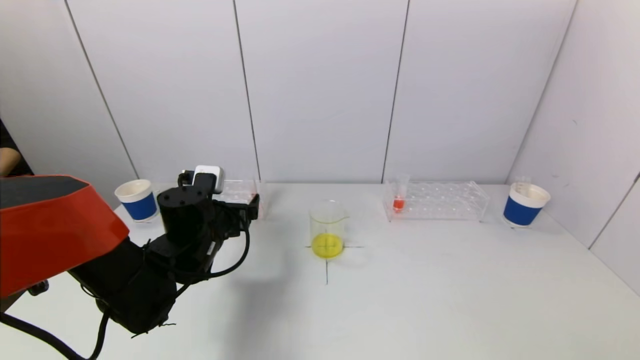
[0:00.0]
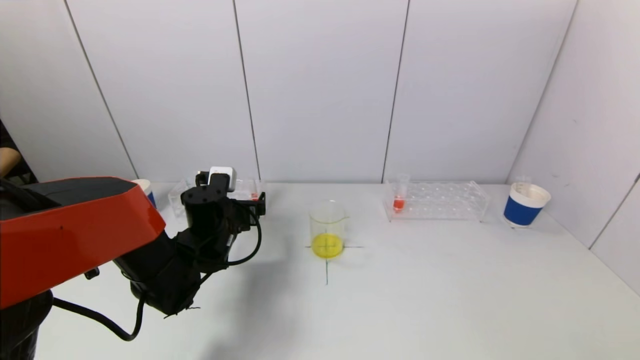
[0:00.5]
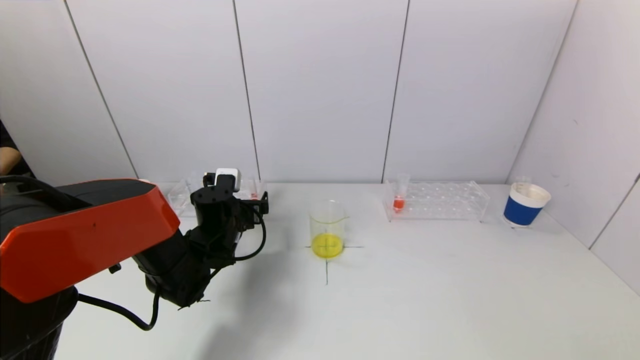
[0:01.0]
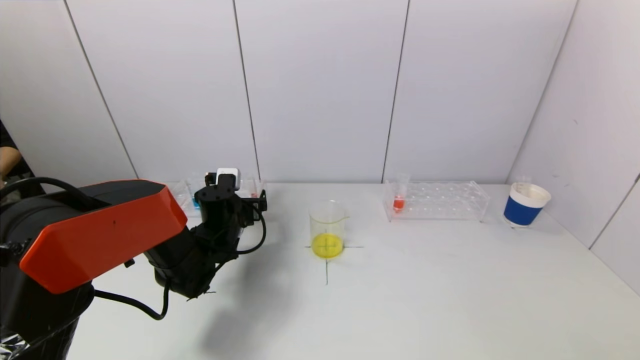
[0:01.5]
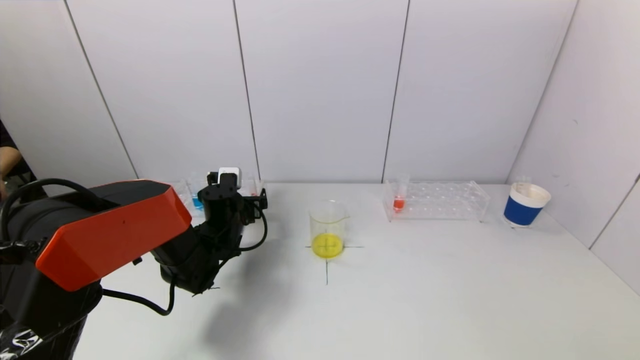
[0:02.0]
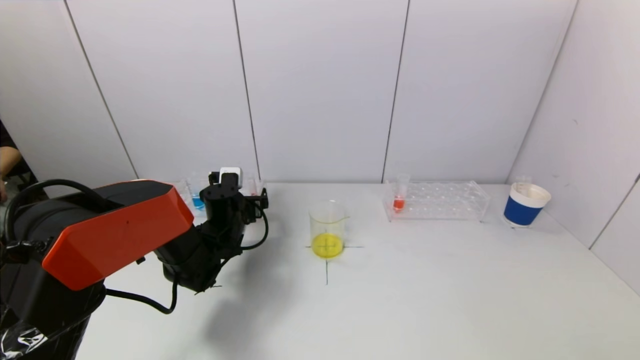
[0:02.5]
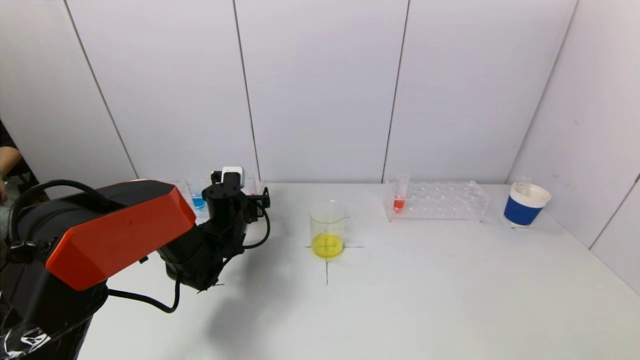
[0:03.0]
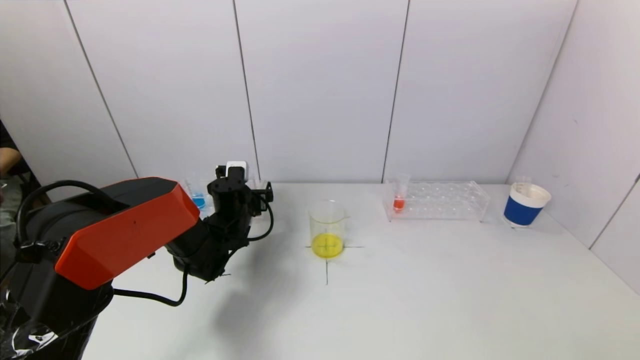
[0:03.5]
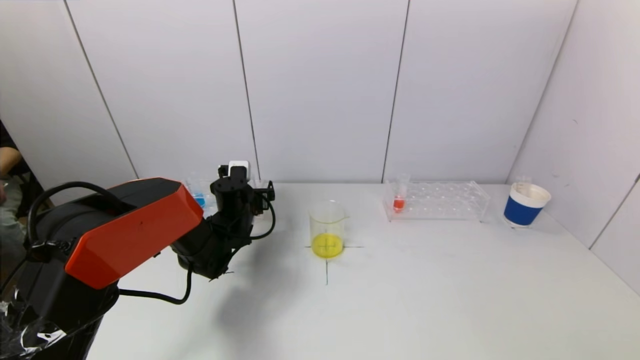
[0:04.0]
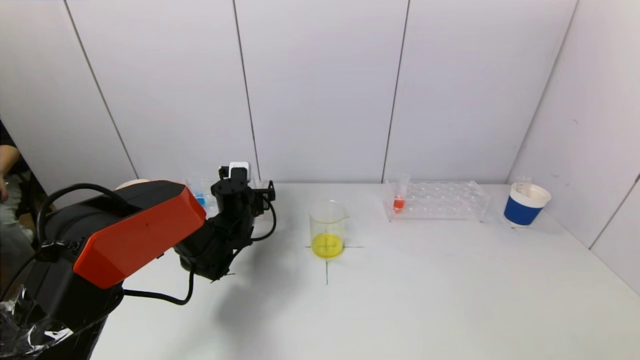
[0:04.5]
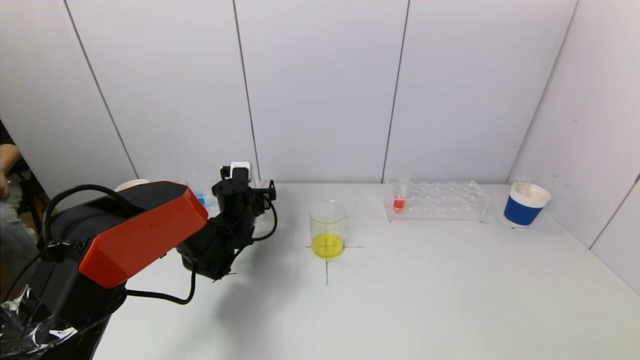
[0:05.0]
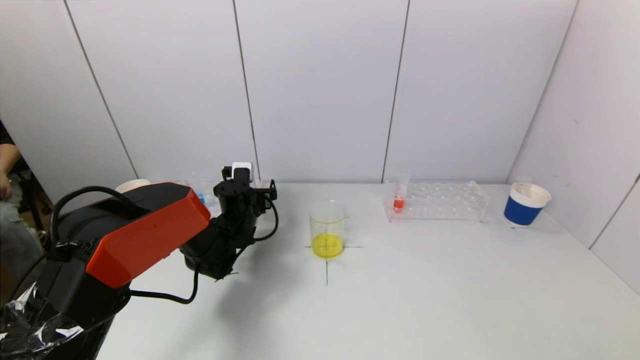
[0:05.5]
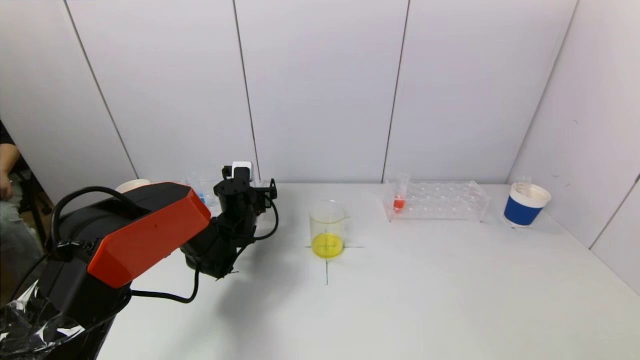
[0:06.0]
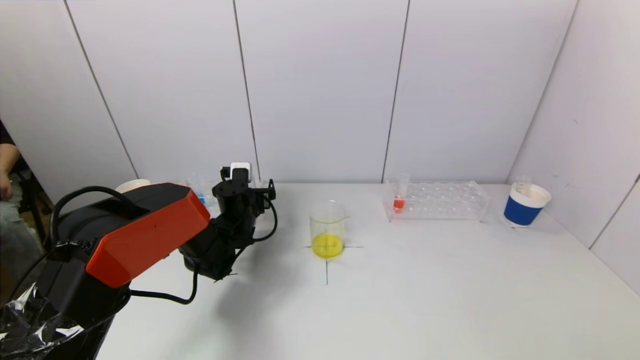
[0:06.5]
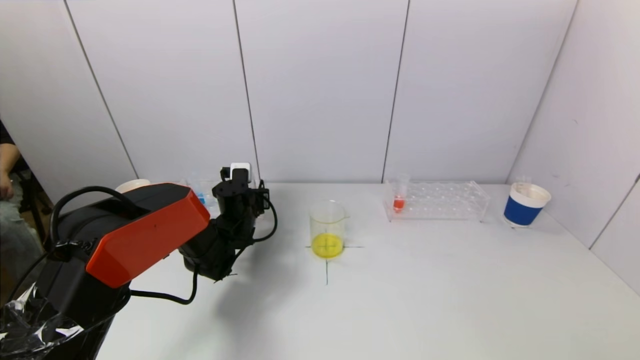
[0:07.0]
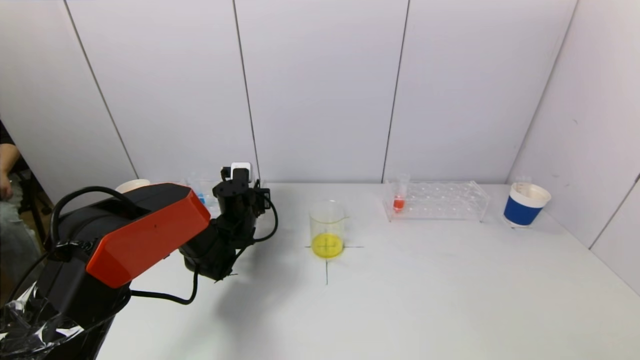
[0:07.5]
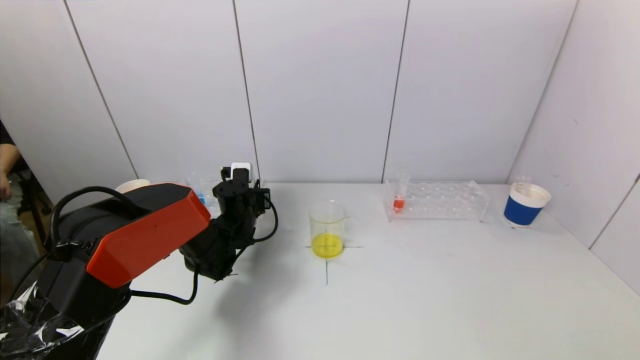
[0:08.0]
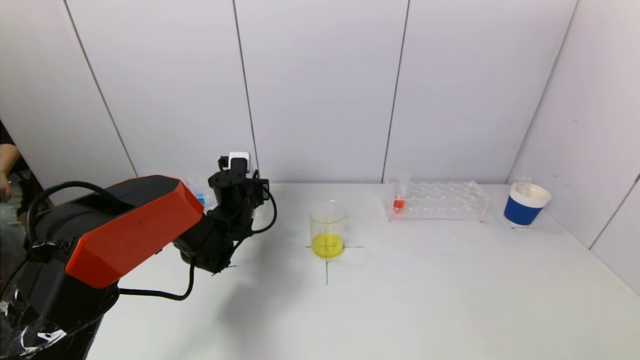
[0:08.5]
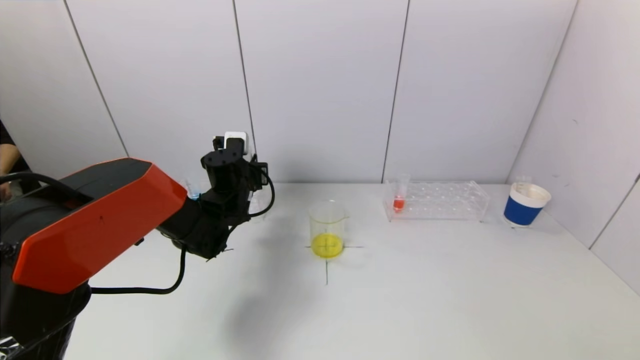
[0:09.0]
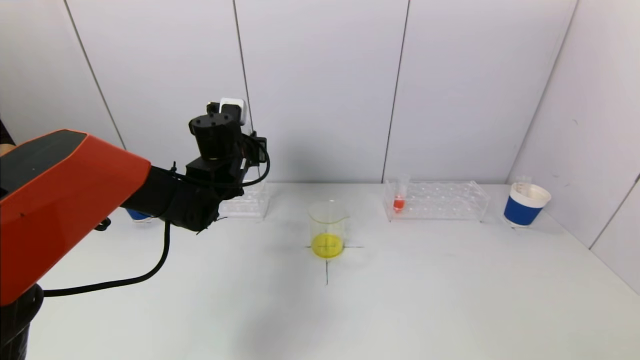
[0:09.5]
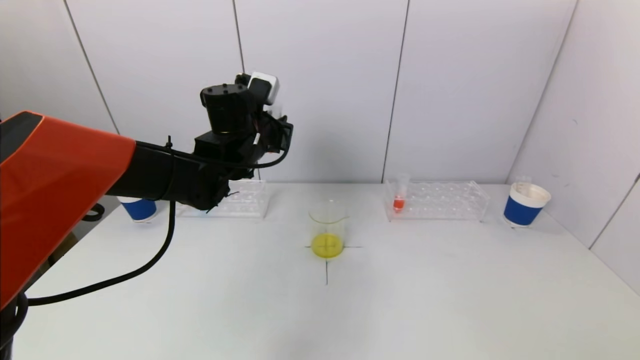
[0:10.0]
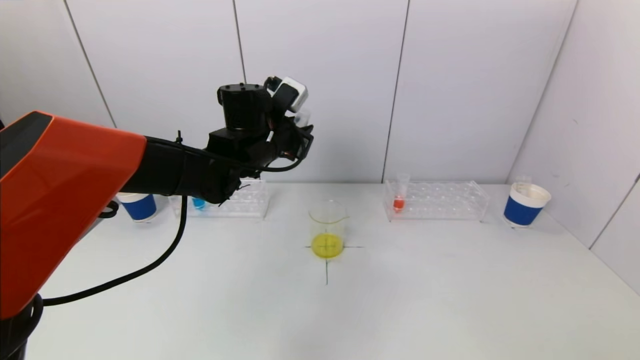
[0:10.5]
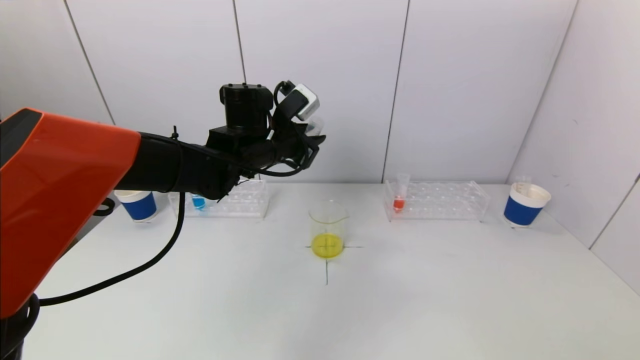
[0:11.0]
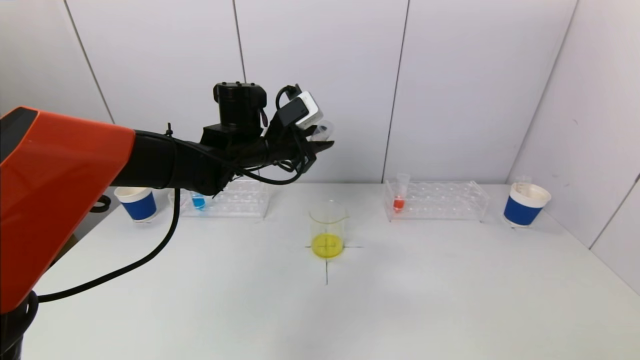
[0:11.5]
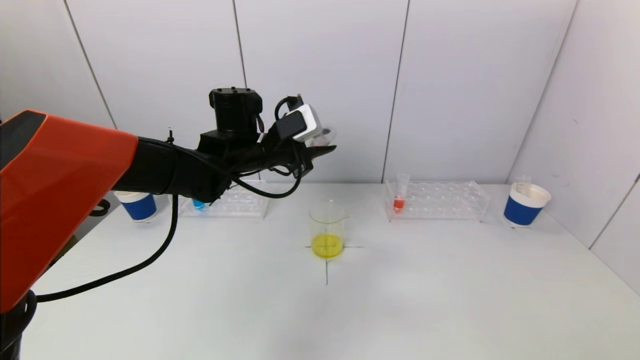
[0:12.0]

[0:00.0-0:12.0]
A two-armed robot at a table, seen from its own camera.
Task of the whole recording: pick up a test tube with pigment on left test tube rack and a test tube with pigment on right test tube rack by grippers and pour them into the beaker.
Step, 0:00.0 to 0:07.0: Grasp the red reagent with the left gripper.
0:00.0 to 0:02.0: The left gripper shifts about 10 cm forward.
0:02.0 to 0:04.0: The grippers move only a little.
0:04.0 to 0:06.0: The two grippers keep their place.
0:06.0 to 0:08.0: The left gripper closes.
0:08.0 to 0:10.0: The left gripper moves upward, roughly 20 cm.

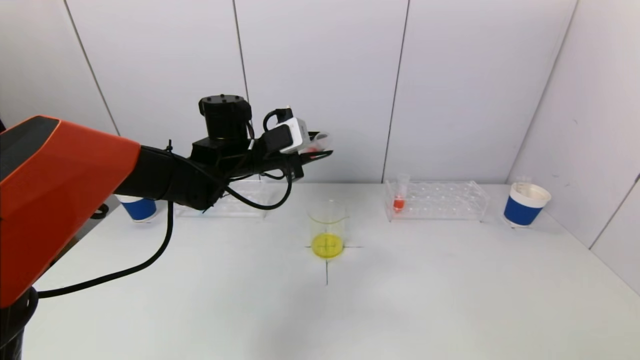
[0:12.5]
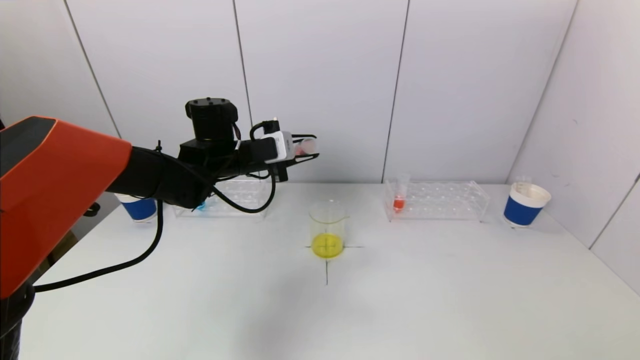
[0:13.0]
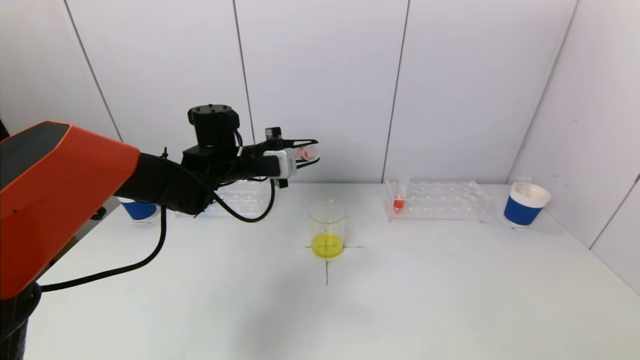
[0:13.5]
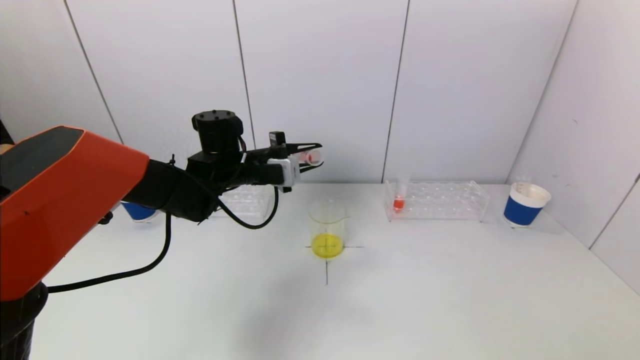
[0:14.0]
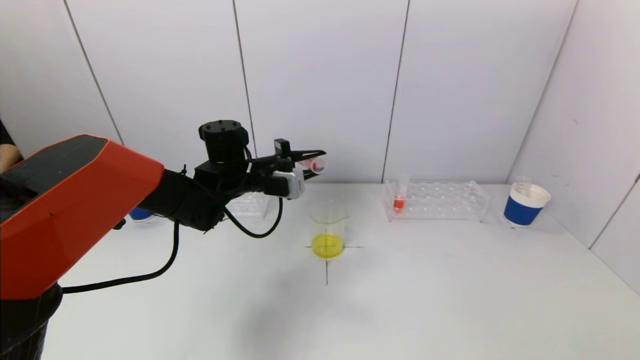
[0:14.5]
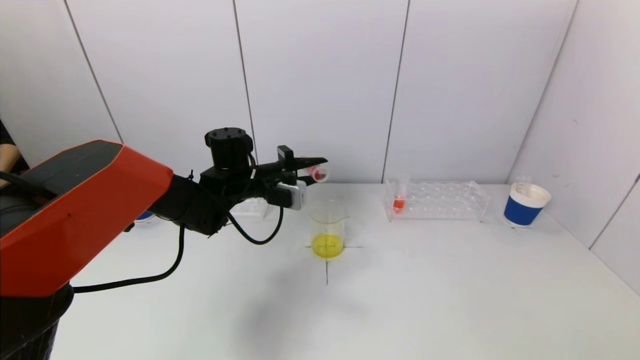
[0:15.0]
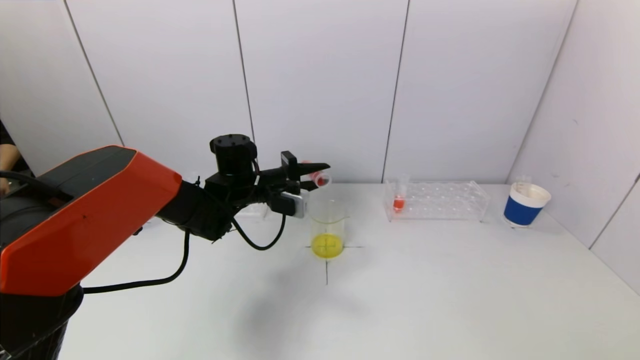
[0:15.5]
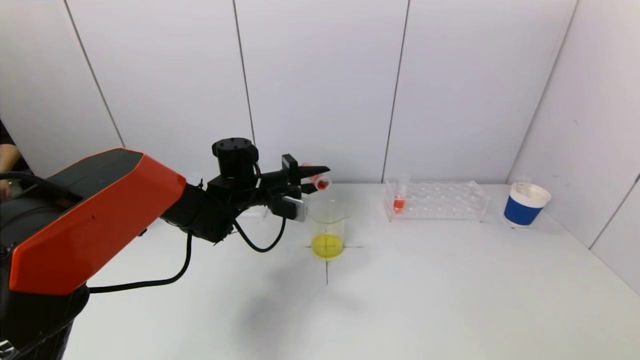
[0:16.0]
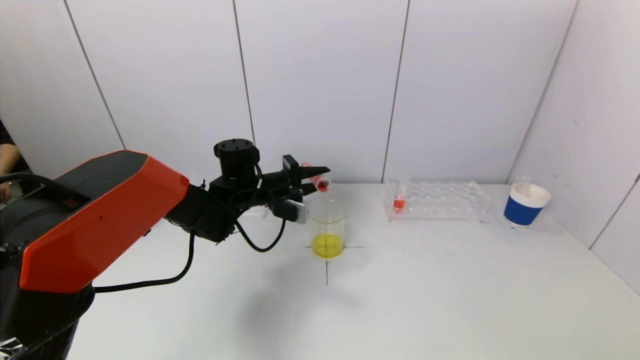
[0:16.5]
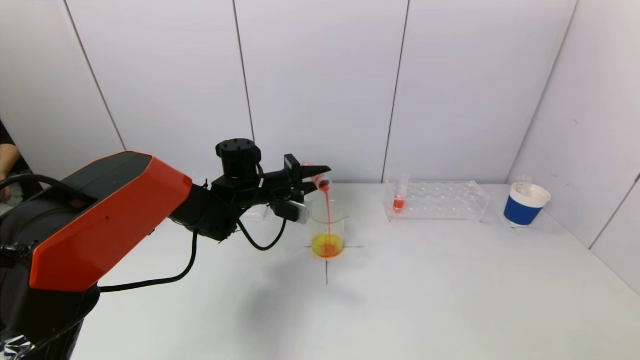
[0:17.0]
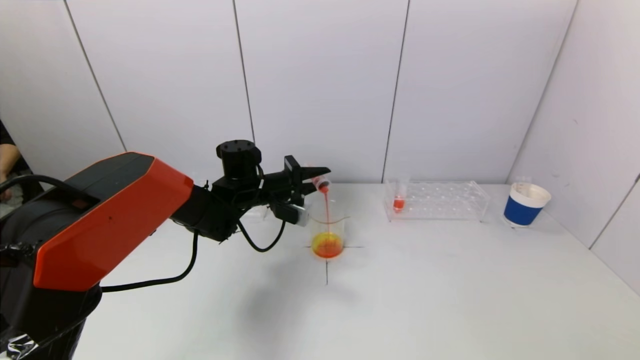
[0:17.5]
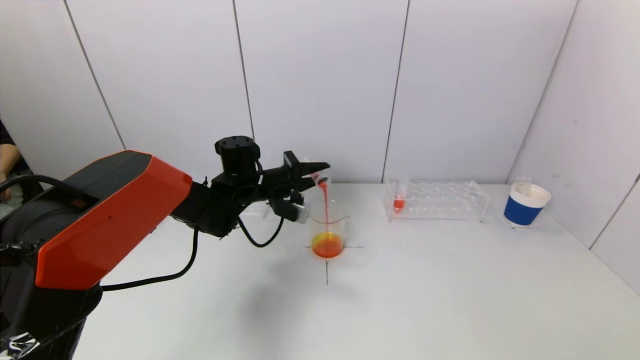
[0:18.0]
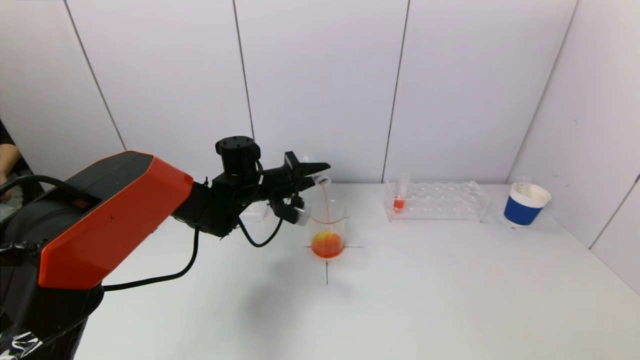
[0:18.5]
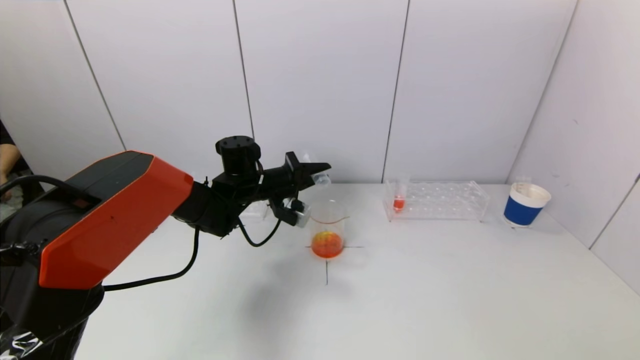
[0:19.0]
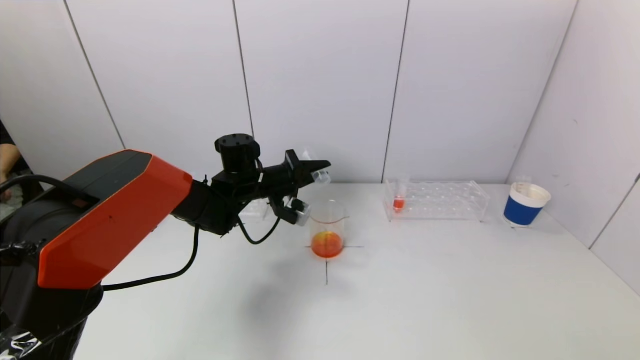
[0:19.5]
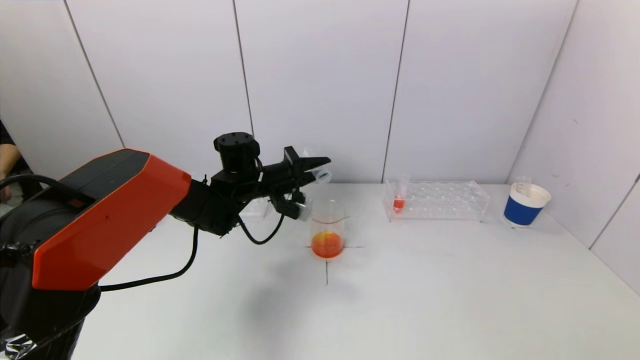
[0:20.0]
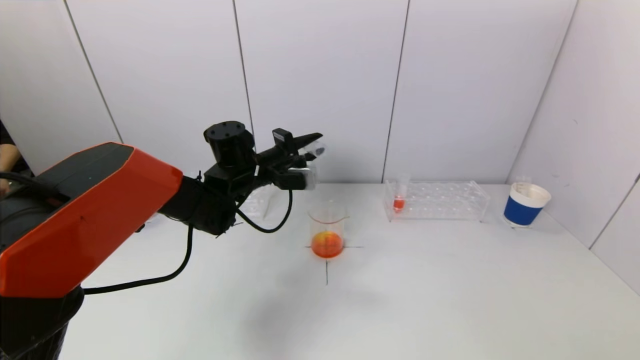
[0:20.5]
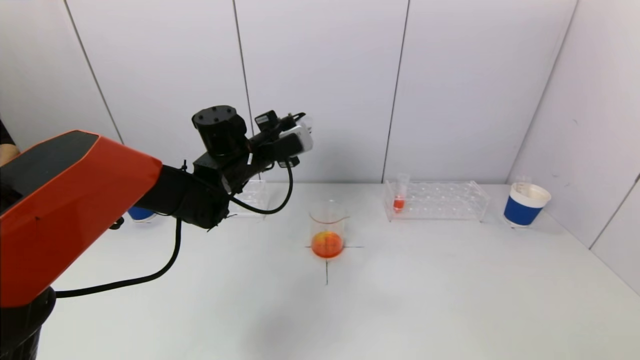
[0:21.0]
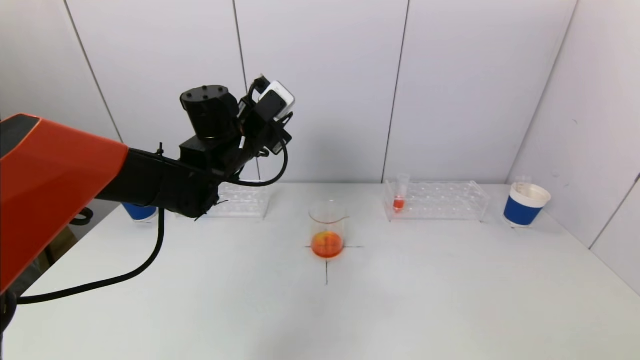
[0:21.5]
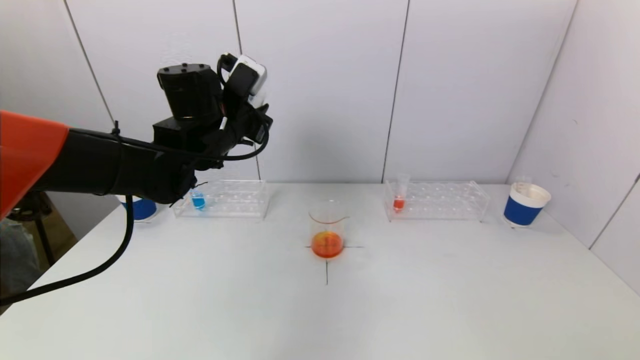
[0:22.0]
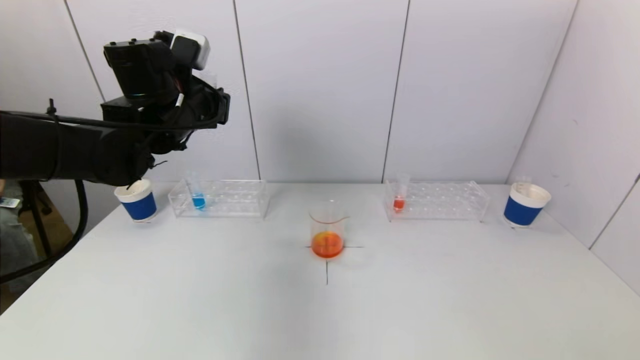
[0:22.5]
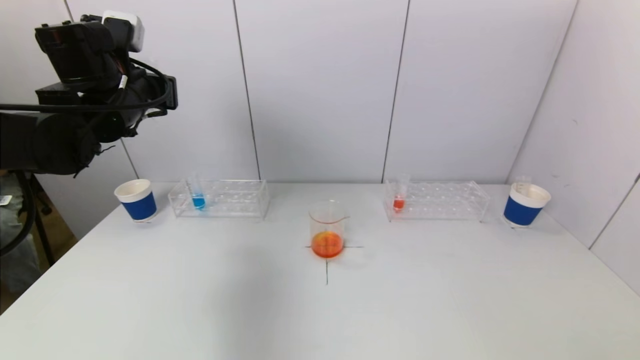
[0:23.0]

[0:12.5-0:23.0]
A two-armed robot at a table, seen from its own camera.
Task of the whole recording: pick up a test tube with pigment on left test tube rack and a test tube with pigment on right test tube rack by grippers and pour them into the beaker.
Step, 0:12.5 to 0:19.5: Pour the red reagent into the graduated cylinder with the left gripper.
0:14.5 to 0:16.5: The grippers make only small movements.
0:16.5 to 0:19.0: The grippers make only small movements.
0:19.0 to 0:21.0: The left gripper shifts approximately 5 cm upward.
0:21.0 to 0:23.0: The left gripper heads to the left and upward, covering some 20 cm.
